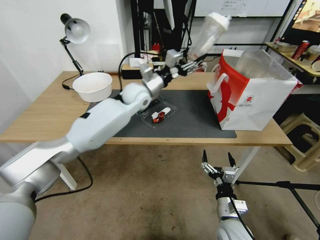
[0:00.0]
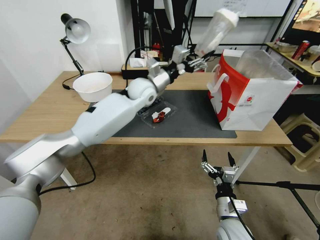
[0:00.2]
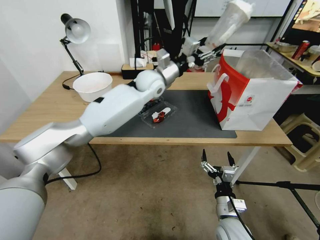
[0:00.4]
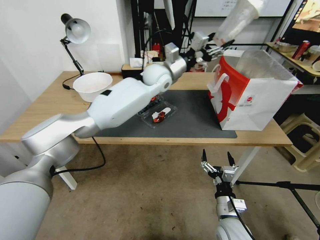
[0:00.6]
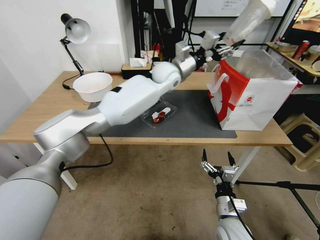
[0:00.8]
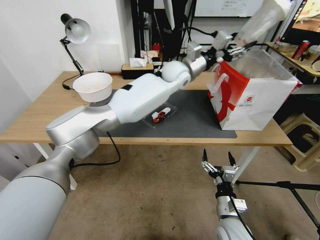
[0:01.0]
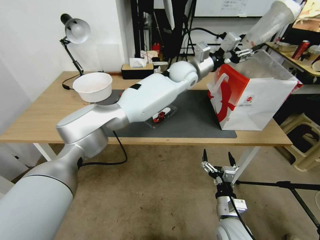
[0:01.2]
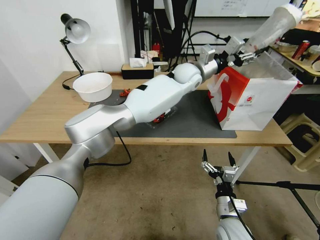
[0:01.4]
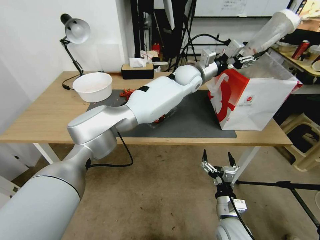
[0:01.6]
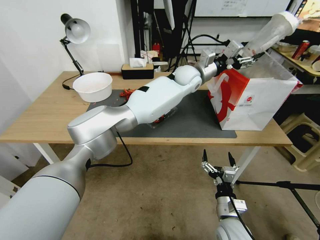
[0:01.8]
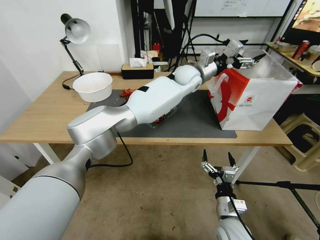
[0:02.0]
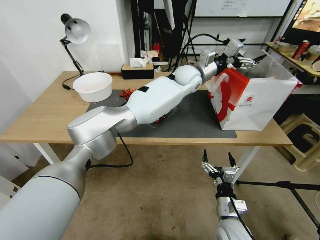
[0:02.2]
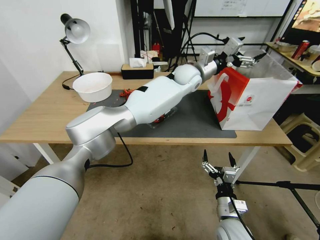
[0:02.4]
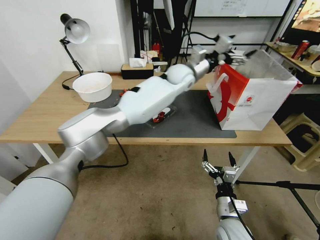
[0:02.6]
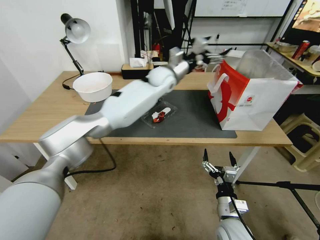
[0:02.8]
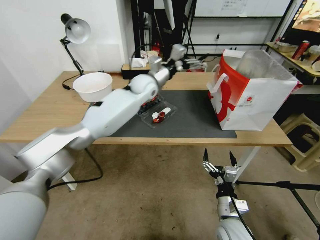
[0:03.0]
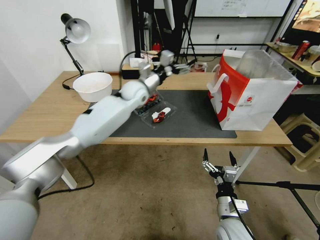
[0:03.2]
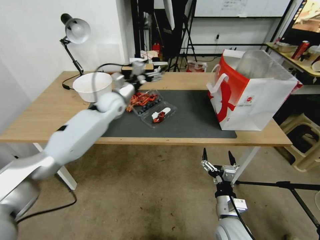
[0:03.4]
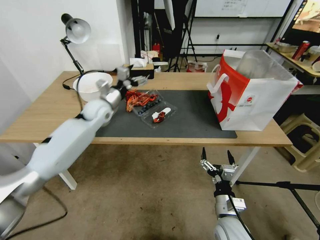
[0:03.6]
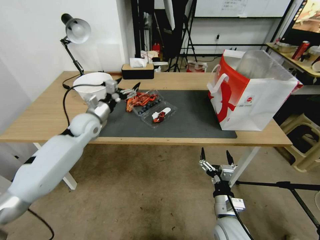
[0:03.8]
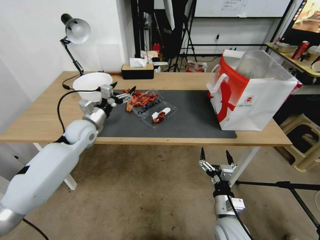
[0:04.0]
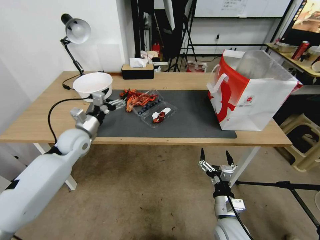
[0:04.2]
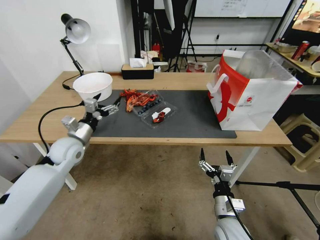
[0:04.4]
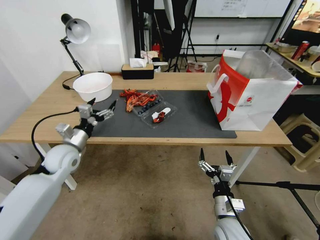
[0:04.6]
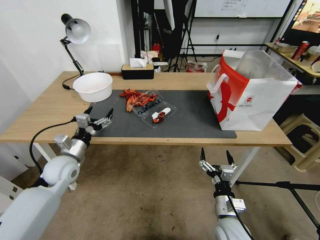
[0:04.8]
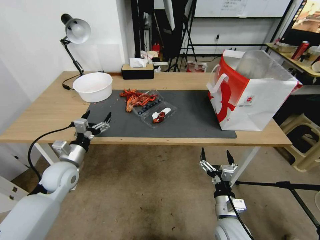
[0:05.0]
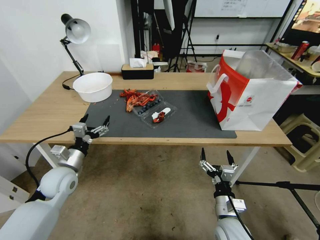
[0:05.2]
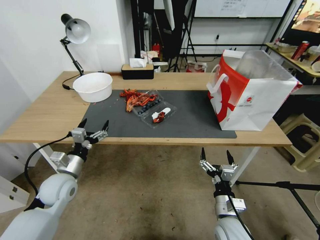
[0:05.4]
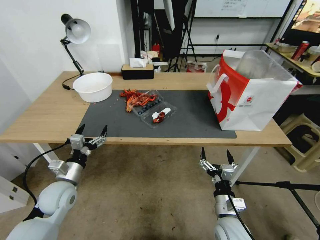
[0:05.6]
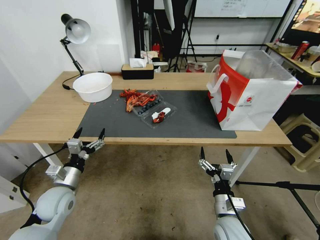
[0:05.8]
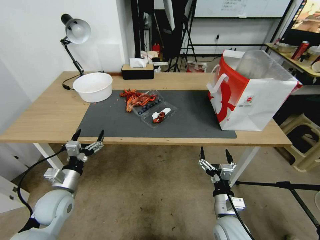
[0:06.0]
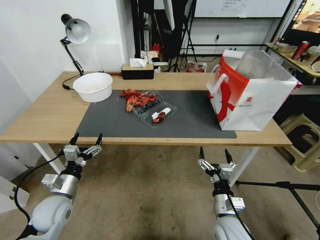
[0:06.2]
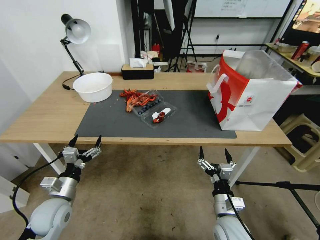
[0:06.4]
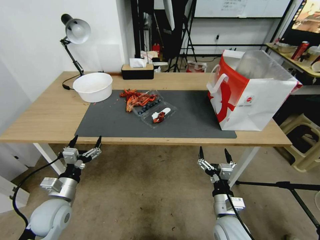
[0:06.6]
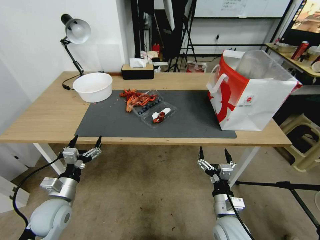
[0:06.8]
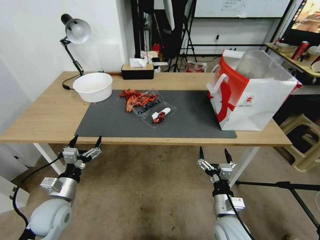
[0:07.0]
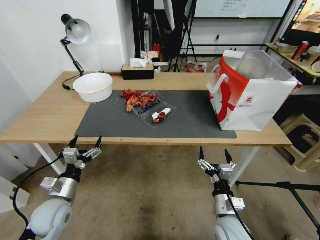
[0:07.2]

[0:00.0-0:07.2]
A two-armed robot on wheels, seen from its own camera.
0:00.0 to 0:01.4: The left gripper heads to the right, covering approximately 20 cm.
0:01.4 to 0:02.8: The left gripper goes some 10 cm to the left, and opens up.
0:02.8 to 0:04.4: The left gripper moves to the left, backward and downward, some 40 cm.
0:04.4 to 0:05.8: The left gripper is displaced backward and downward by about 15 cm.
0:05.8 to 0:07.2: The grippers stay close to where they were, moving slightly.

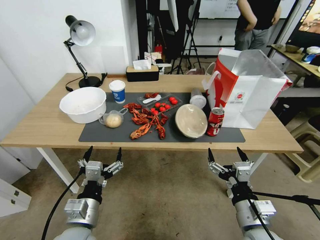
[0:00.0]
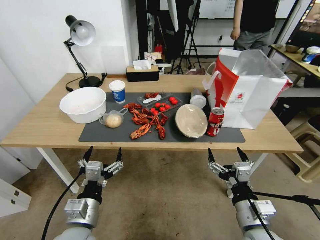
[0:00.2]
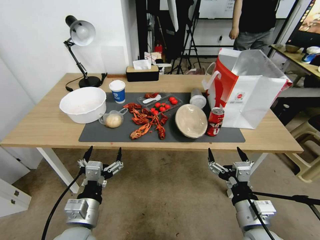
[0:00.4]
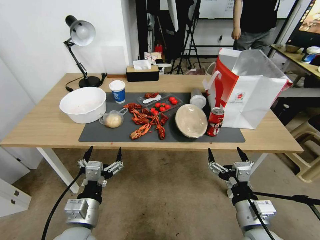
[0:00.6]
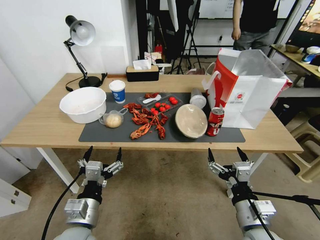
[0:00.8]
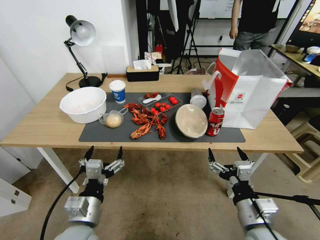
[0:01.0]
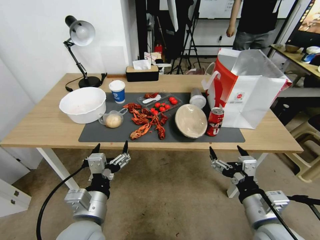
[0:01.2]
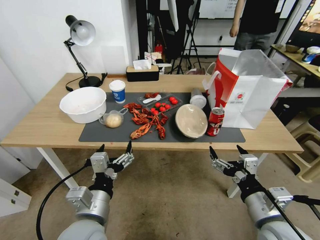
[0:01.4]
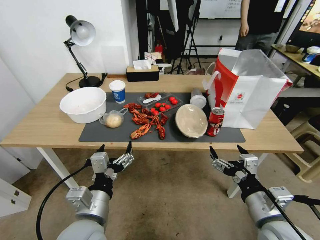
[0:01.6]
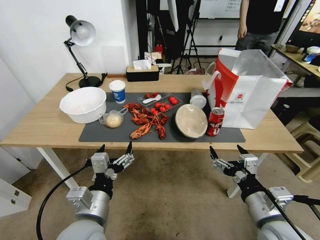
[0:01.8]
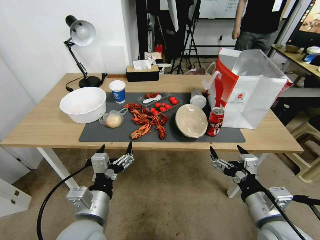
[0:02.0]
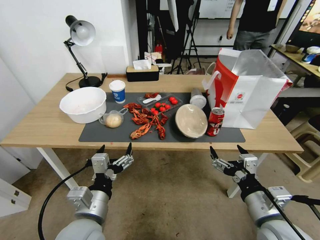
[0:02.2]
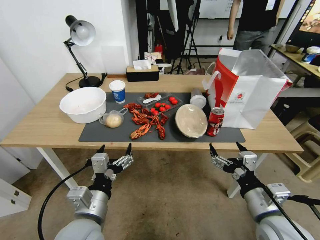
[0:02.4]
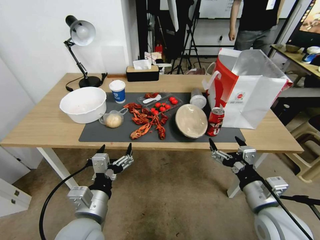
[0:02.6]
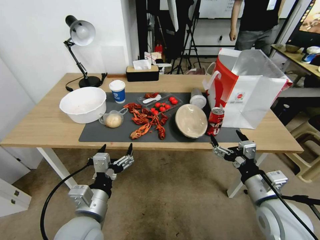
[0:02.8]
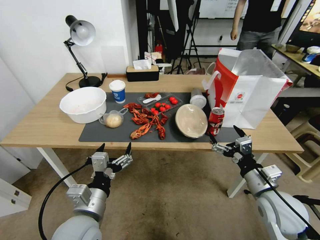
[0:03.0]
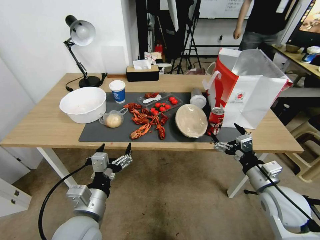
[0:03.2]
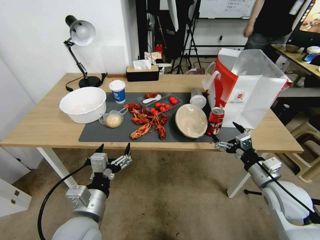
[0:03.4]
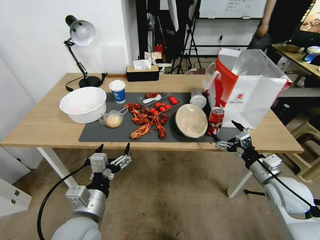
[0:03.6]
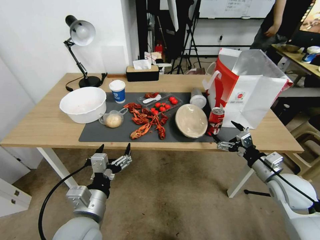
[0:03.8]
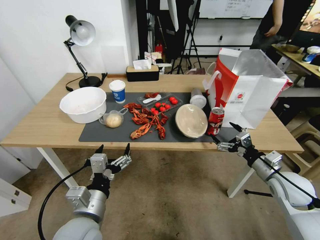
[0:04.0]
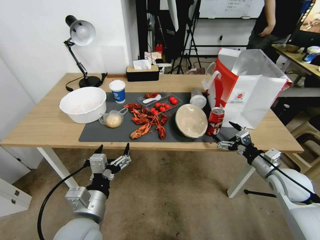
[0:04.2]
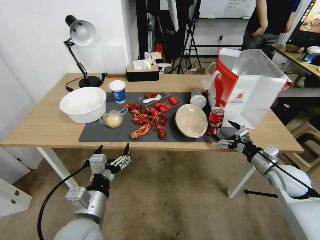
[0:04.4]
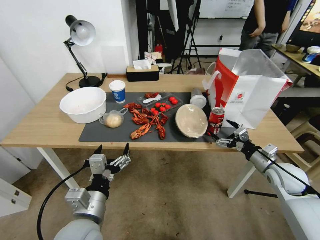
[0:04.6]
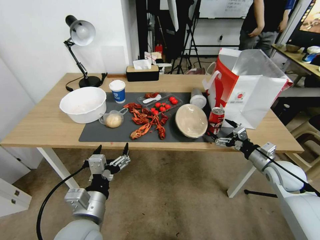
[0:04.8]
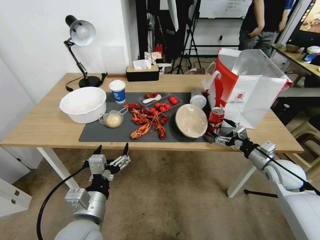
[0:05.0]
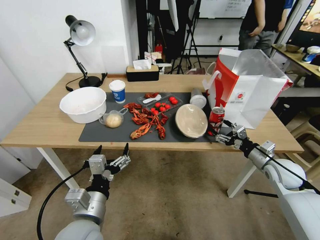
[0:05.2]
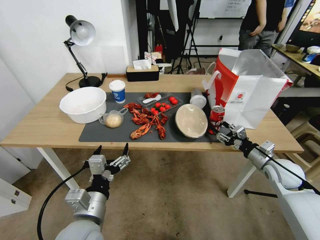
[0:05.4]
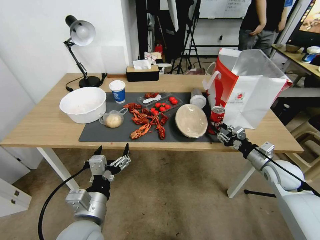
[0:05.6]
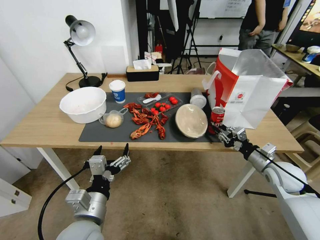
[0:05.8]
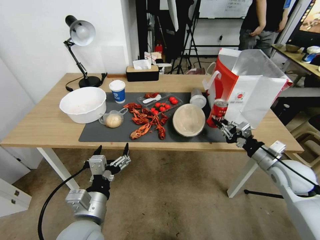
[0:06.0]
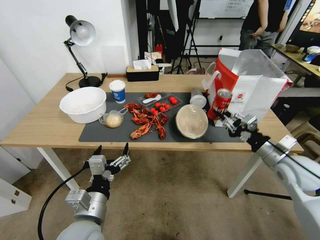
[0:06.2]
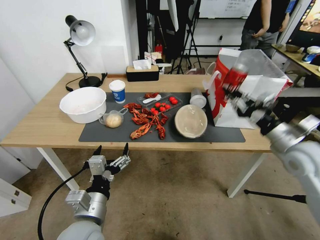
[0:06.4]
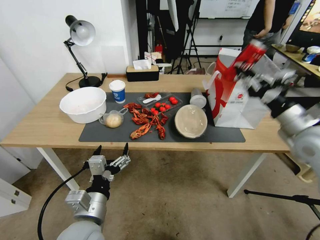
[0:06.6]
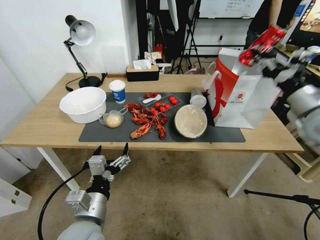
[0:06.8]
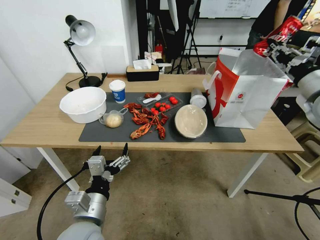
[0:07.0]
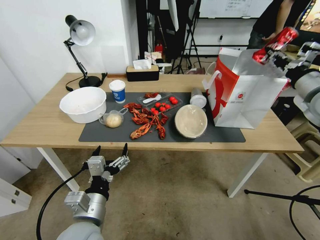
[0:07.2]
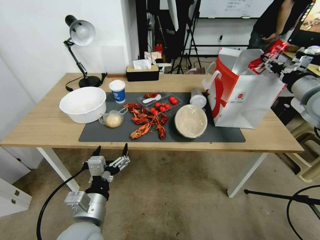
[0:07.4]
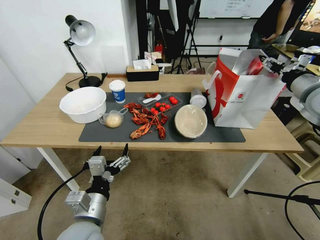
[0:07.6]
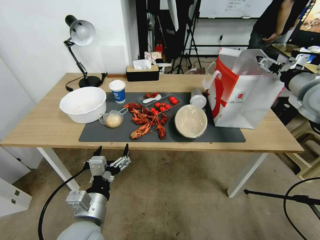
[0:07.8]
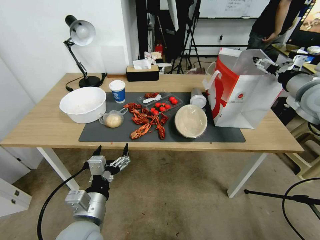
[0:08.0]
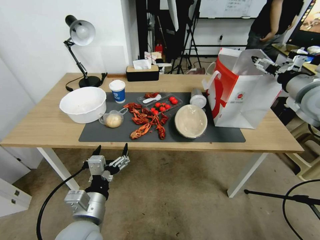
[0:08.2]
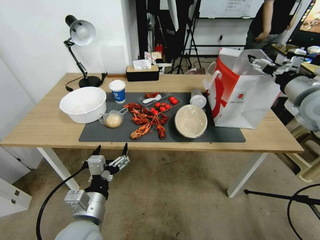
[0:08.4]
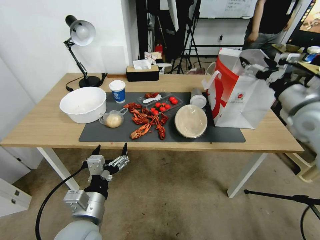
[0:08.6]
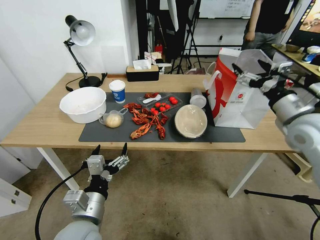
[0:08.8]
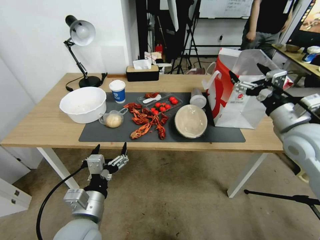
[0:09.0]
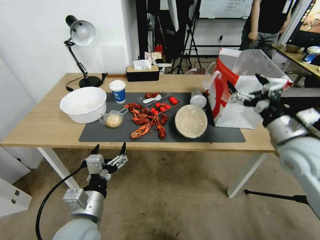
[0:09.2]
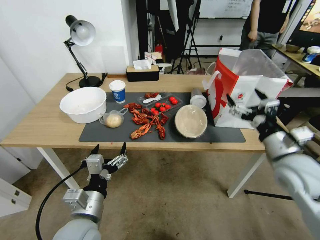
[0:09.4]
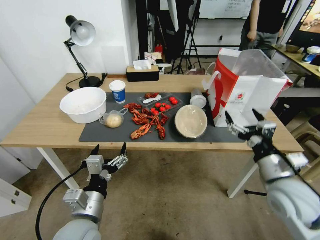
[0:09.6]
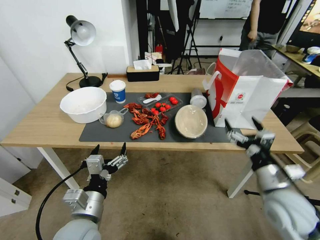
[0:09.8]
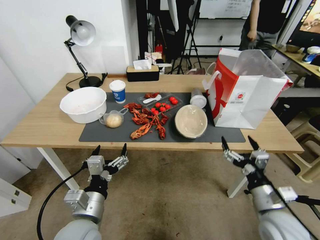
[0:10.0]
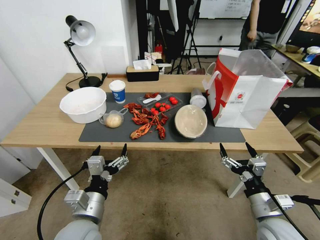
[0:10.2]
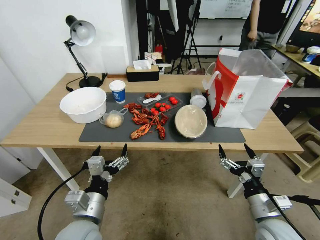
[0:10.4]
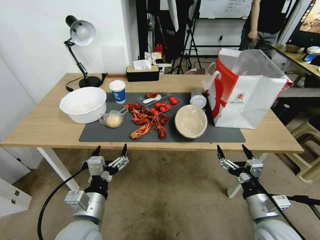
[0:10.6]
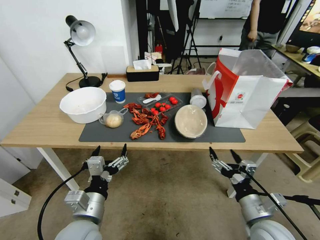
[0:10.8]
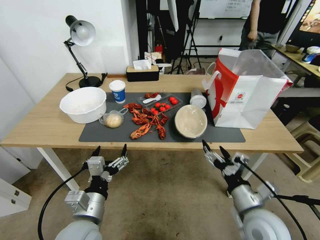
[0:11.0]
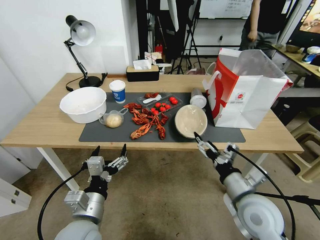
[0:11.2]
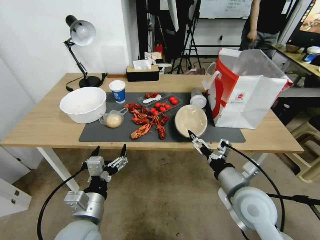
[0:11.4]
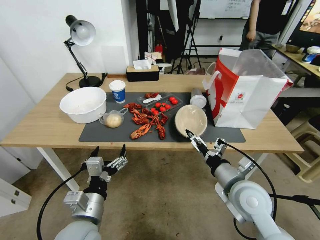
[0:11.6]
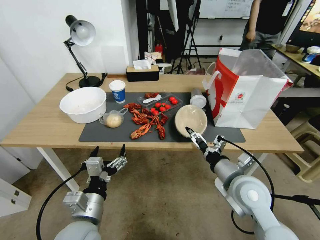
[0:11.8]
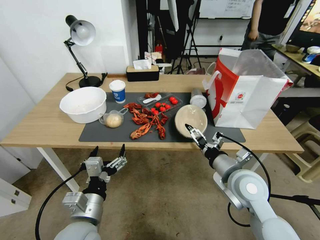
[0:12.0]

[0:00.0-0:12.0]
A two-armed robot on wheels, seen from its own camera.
0:01.6 to 0:03.0: The right gripper is displaced forward by roughly 5 cm.
0:03.0 to 0:04.4: The right gripper travels to the right and forward by roughly 15 cm.
0:04.4 to 0:06.0: The right gripper closes.
0:06.0 to 0:07.6: The right gripper moves upward and forward, approximately 25 cm, and opens.
0:07.6 to 0:09.0: The right gripper heads backward, downward and to the left, covering about 10 cm, and opens.
0:09.0 to 0:10.4: The right gripper moves downward and backward, about 25 cm.
0:10.4 to 0:12.0: The right gripper is displaced forward, to the left and upward by roughly 15 cm.

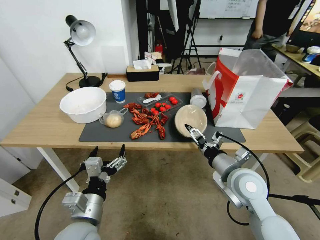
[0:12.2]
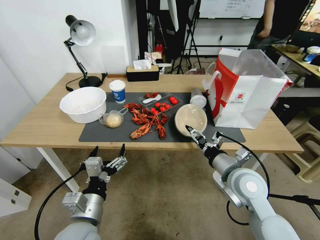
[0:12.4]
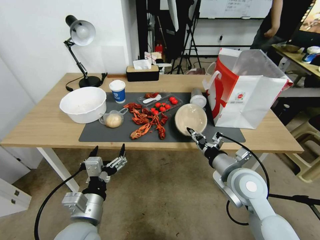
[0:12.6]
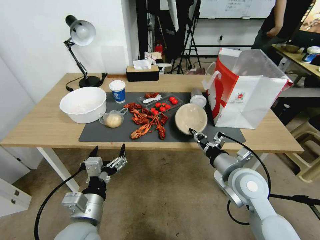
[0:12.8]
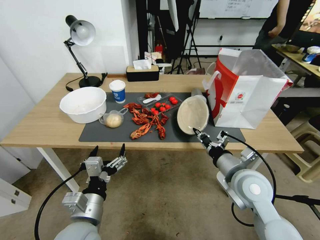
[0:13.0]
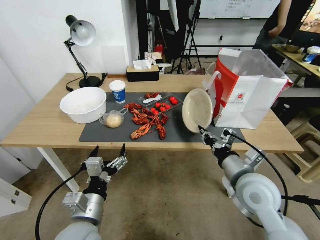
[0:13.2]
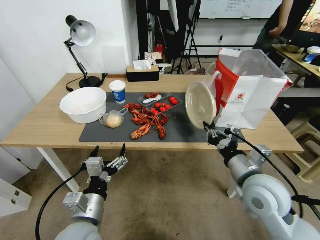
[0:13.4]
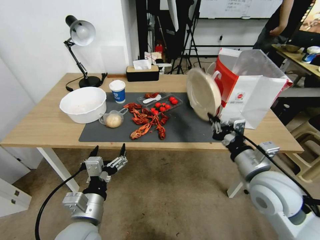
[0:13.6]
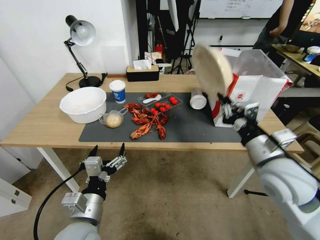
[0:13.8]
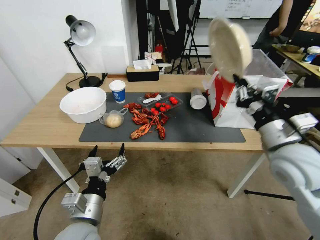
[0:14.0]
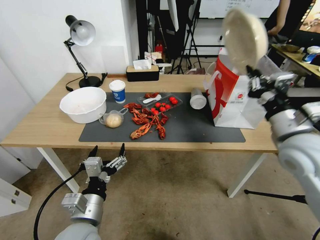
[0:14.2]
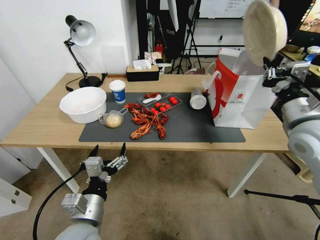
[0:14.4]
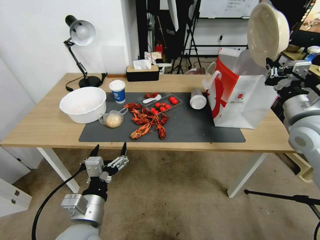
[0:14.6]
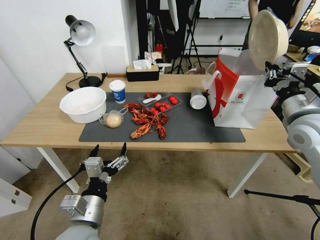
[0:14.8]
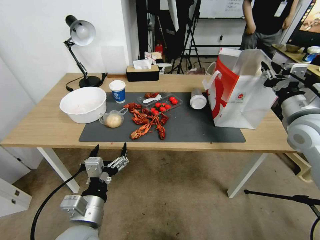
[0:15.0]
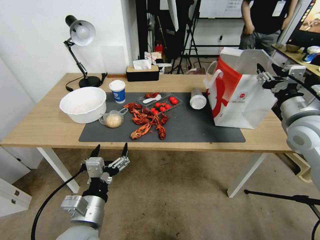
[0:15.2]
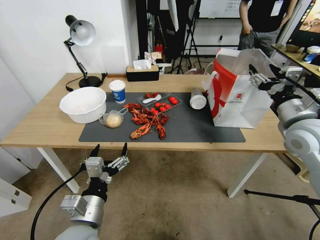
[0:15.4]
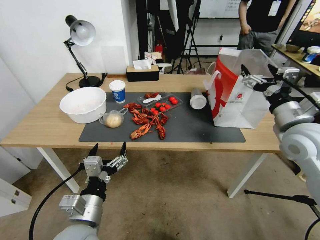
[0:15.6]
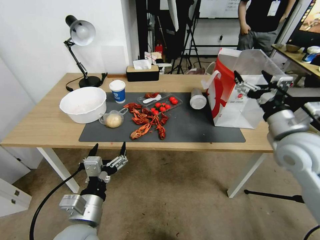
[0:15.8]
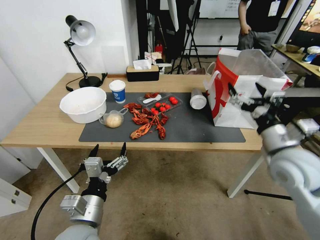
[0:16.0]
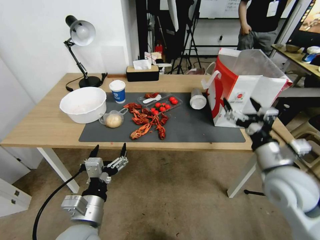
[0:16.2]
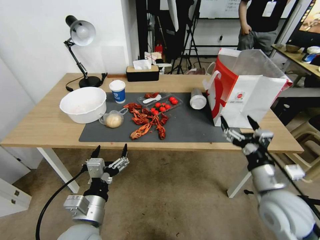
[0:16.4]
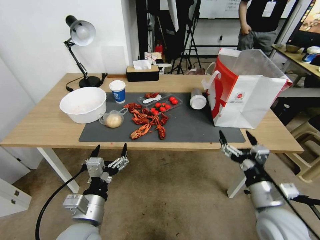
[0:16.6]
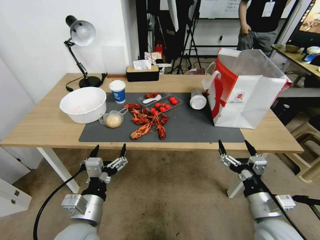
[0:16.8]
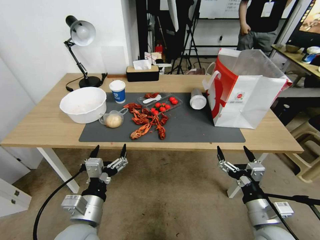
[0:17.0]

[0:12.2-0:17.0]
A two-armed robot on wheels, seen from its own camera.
0:12.2 to 0:13.8: The right gripper shifts roughly 10 cm upward, and closes.
0:13.8 to 0:15.4: The right gripper travels to the right and forward by roughly 10 cm, and opens its fingers.
0:15.4 to 0:17.0: The right gripper shifts approximately 30 cm downward, backward and to the left.
